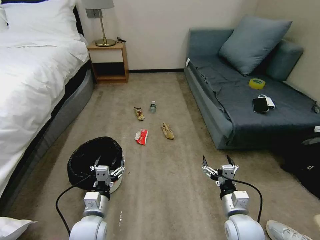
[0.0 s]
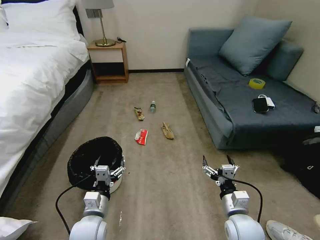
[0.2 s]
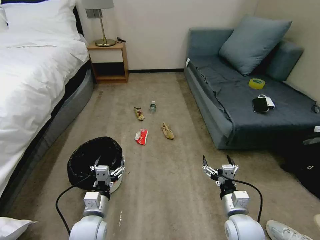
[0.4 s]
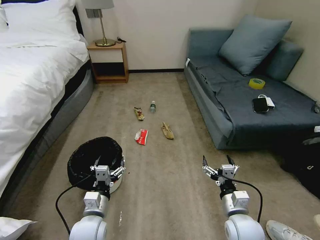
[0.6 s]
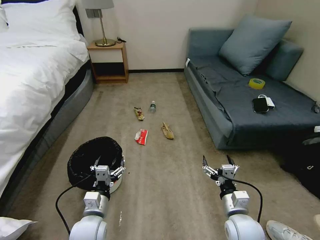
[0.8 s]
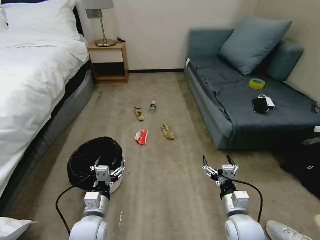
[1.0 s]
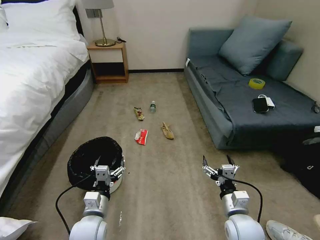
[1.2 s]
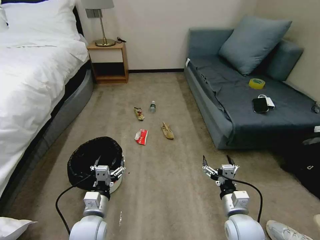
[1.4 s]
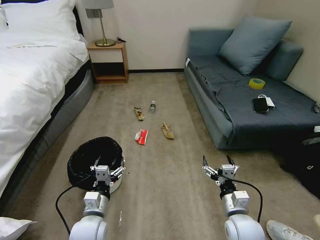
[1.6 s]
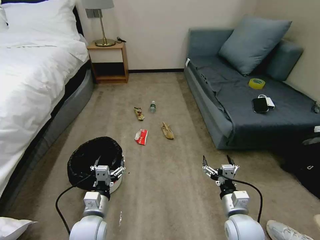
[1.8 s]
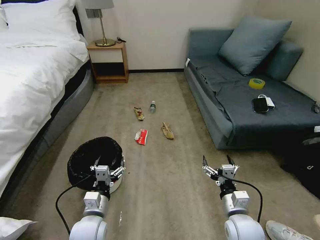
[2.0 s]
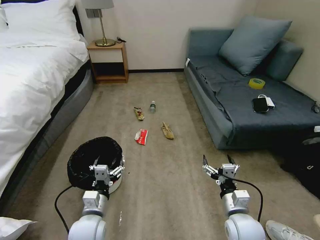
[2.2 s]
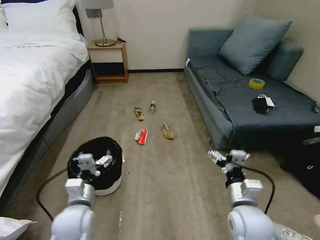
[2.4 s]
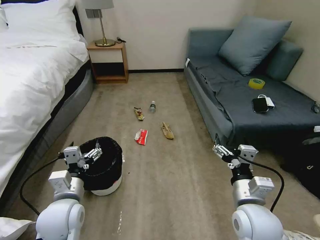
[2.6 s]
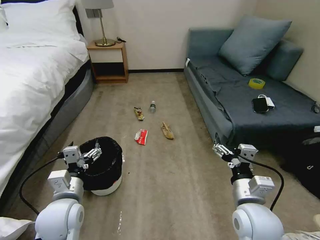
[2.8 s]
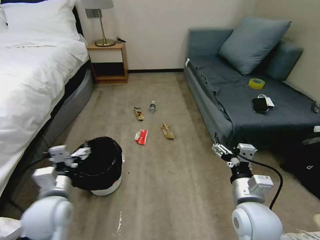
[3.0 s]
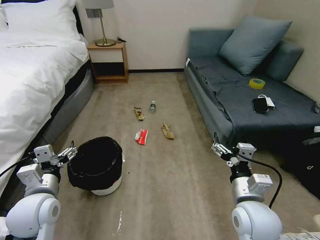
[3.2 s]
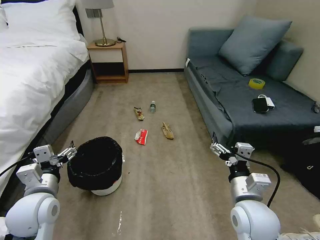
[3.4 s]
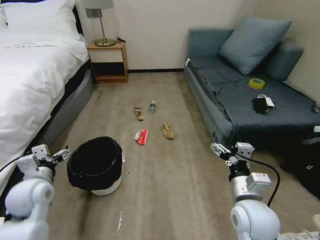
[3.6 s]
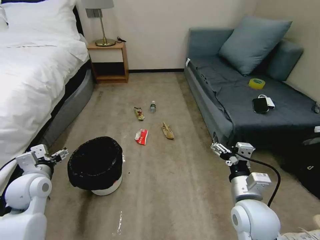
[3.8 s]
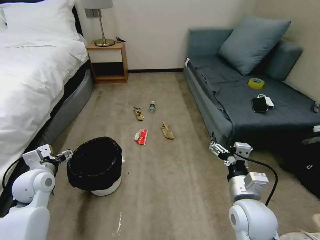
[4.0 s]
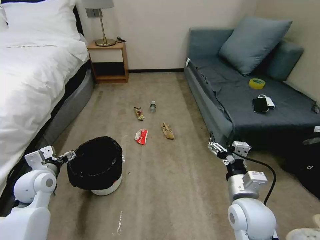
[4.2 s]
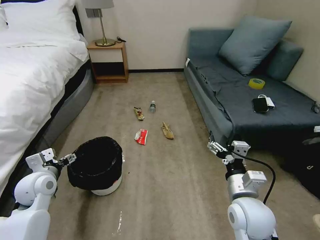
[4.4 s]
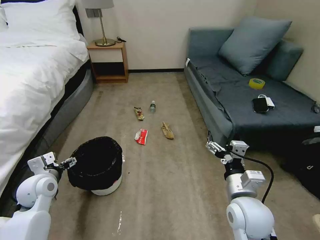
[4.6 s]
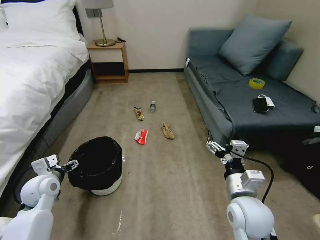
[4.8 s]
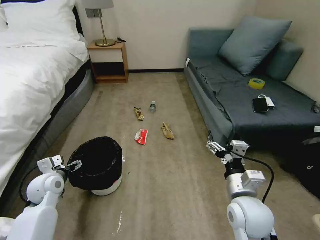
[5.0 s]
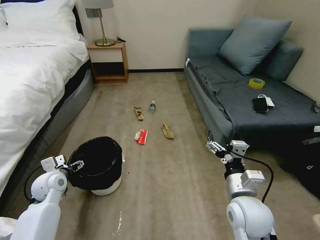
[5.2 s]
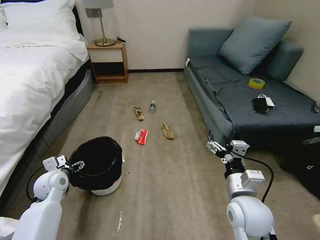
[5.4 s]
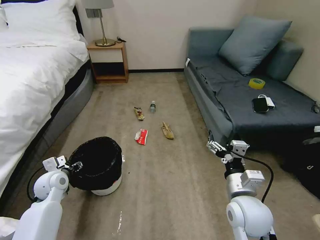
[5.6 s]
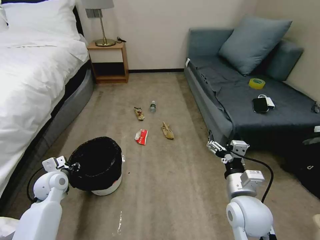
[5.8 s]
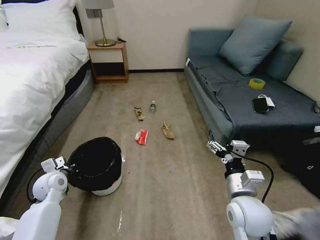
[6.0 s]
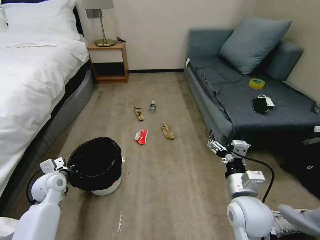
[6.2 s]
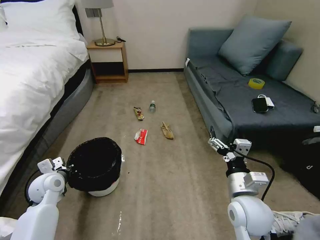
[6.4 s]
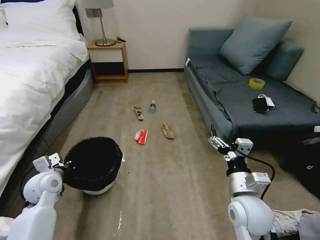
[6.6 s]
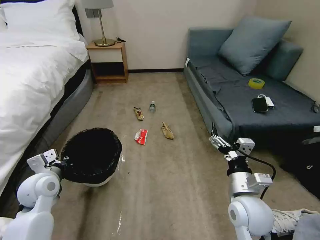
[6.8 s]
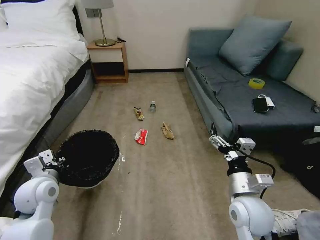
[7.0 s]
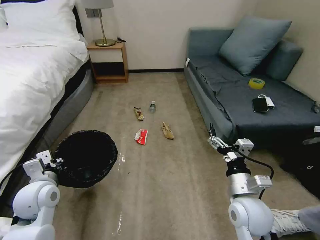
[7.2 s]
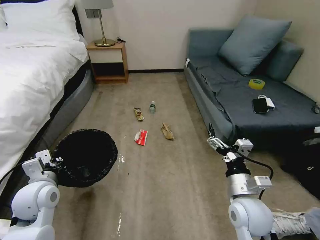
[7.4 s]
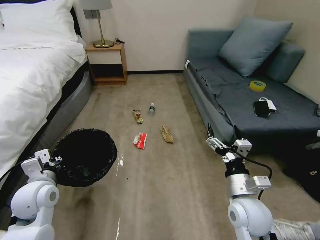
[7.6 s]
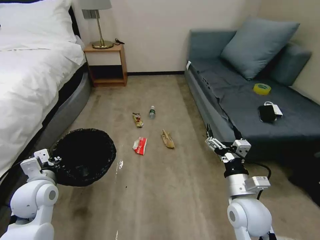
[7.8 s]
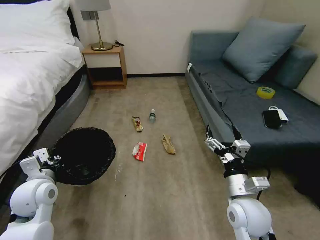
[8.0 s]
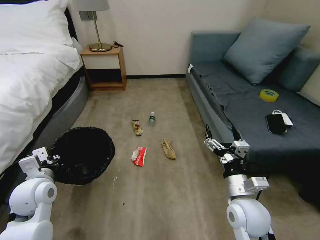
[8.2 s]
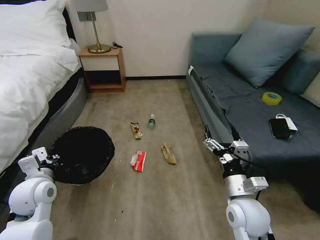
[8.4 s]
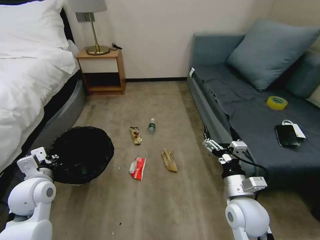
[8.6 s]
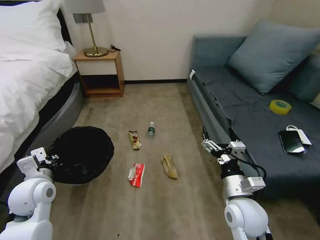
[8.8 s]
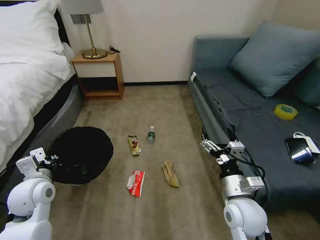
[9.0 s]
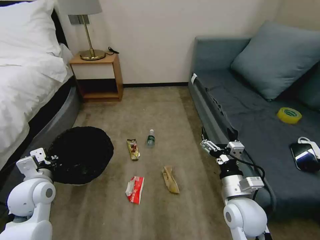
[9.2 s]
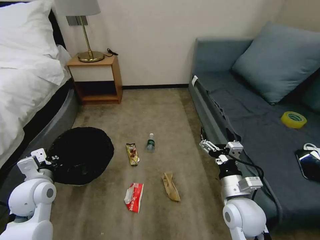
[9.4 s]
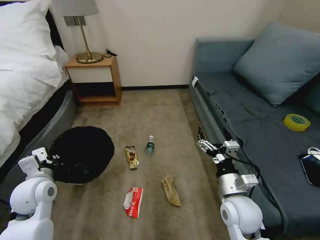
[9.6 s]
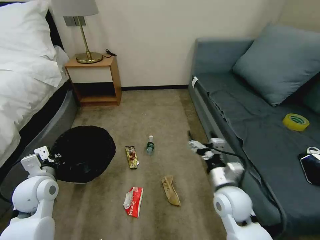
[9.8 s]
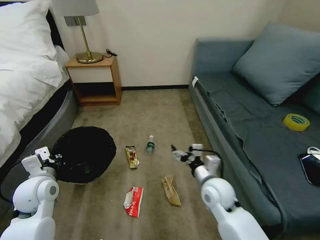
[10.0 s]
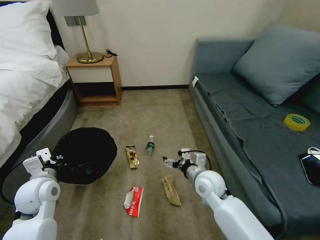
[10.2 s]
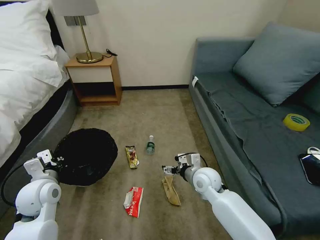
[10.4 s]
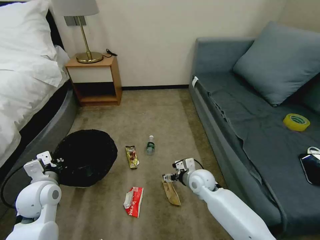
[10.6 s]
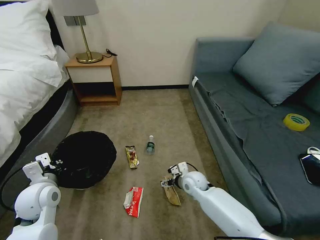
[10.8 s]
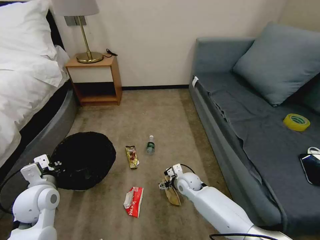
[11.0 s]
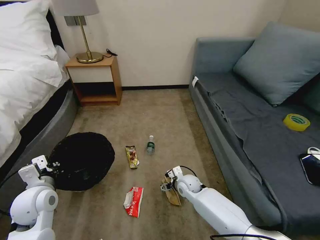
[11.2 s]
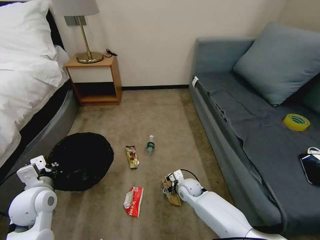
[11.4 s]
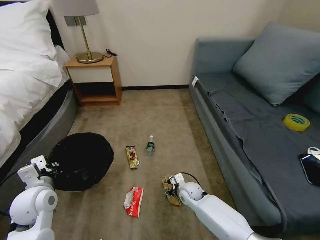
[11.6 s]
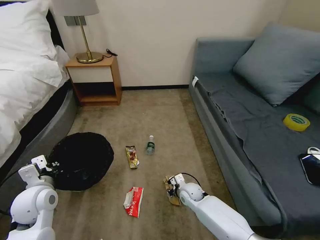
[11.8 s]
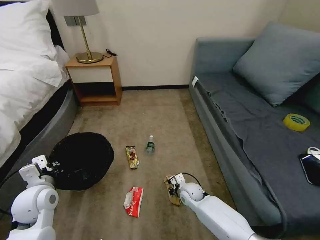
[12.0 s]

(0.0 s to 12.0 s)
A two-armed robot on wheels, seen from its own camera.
Task of the whole recording: Pick up the trash bin, then pick up the garbage on the floor and place it into the trash bin.
1.6 s - 3.0 s: The left gripper moves upward and to the left, roughly 15 cm. Meanwhile the right gripper goes some 10 cm upward.
3.0 s - 4.4 s: The left gripper goes approximately 15 cm to the left and forward.
4.4 s - 6.0 s: The left gripper moves downward, some 5 cm, and closes its fingers.
6.0 s - 7.6 s: The left gripper moves upward and backward, about 10 cm.
9.0 s - 10.4 s: The right gripper travels forward, to the left and downward by roughly 15 cm.
10.4 s - 12.0 s: The right gripper moves downward, approximately 15 cm, and closes its fingers.

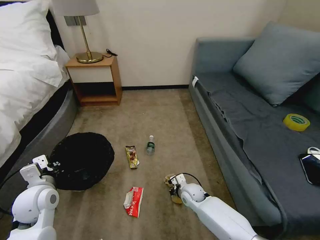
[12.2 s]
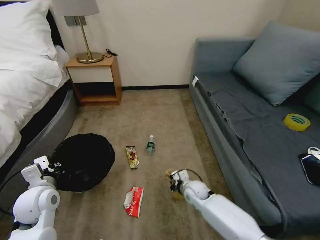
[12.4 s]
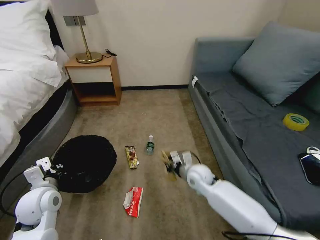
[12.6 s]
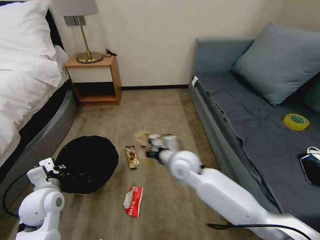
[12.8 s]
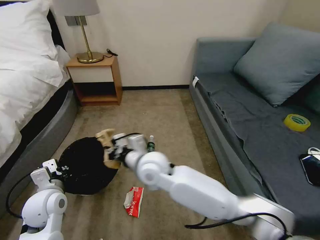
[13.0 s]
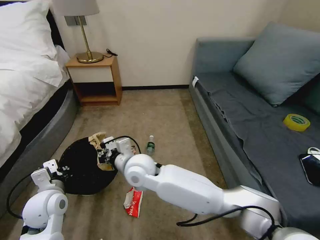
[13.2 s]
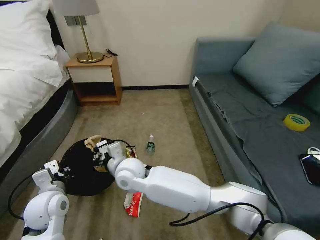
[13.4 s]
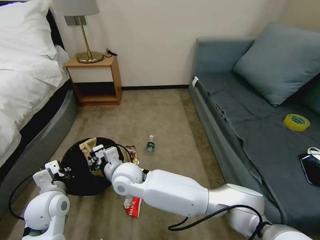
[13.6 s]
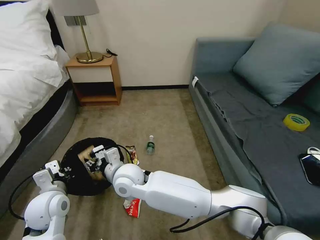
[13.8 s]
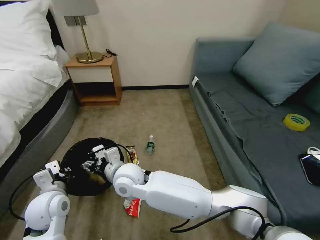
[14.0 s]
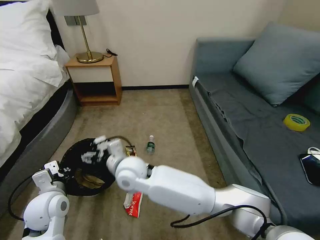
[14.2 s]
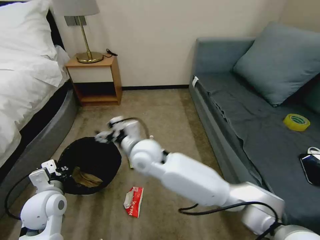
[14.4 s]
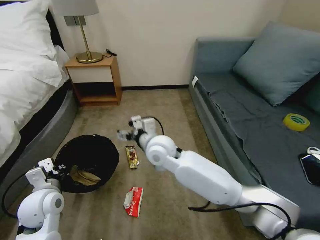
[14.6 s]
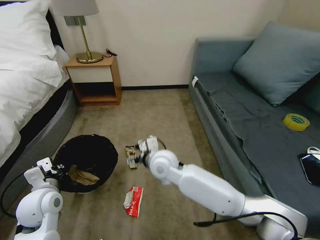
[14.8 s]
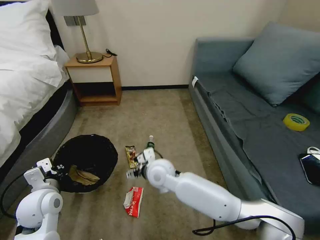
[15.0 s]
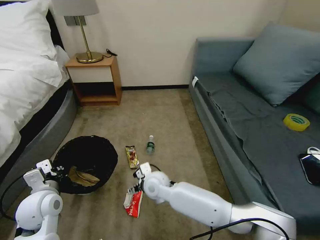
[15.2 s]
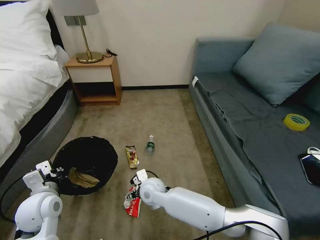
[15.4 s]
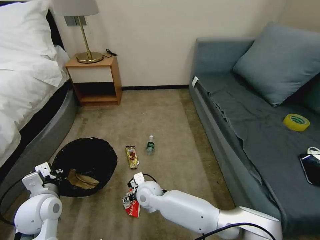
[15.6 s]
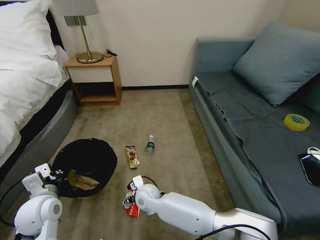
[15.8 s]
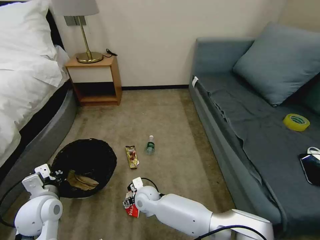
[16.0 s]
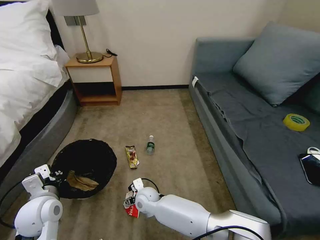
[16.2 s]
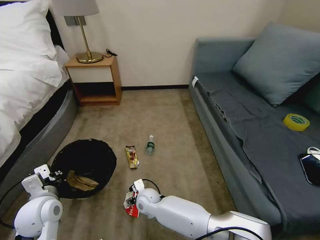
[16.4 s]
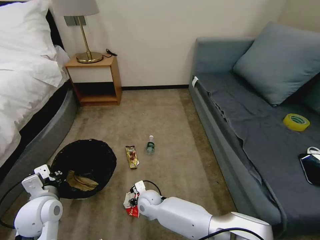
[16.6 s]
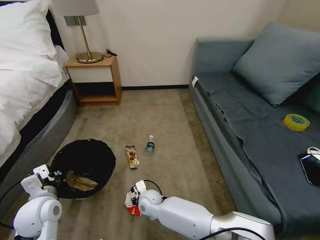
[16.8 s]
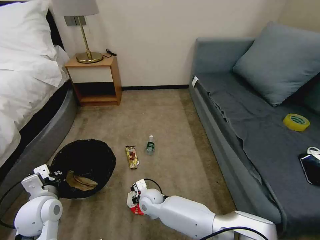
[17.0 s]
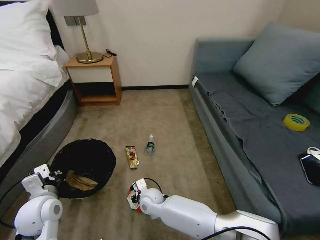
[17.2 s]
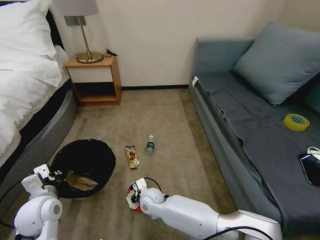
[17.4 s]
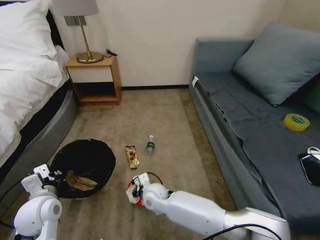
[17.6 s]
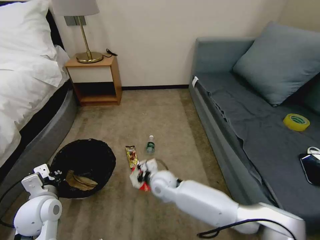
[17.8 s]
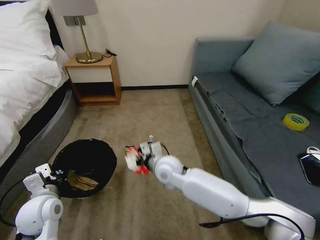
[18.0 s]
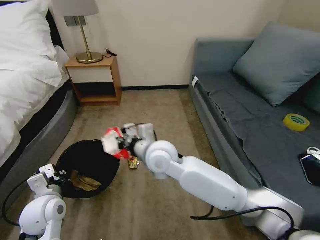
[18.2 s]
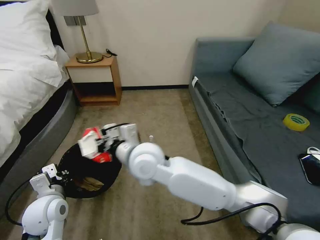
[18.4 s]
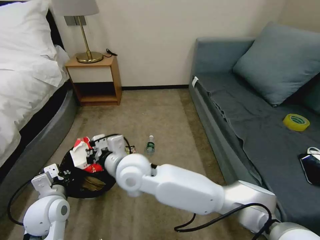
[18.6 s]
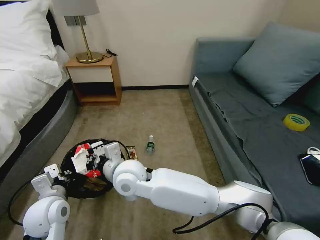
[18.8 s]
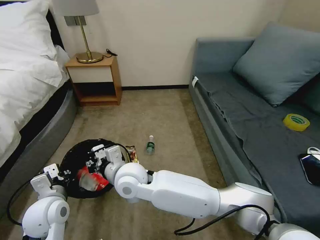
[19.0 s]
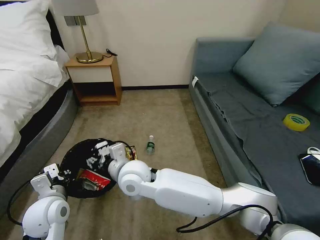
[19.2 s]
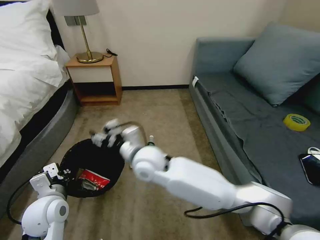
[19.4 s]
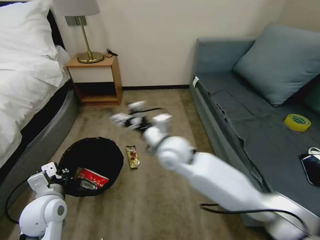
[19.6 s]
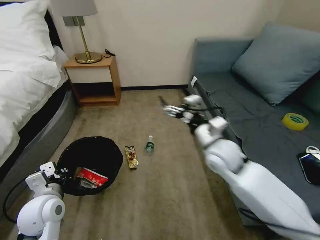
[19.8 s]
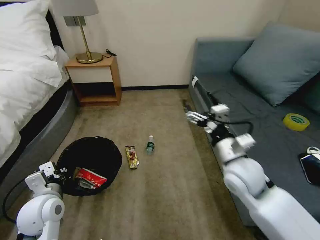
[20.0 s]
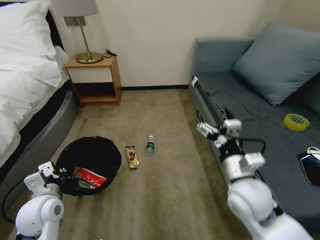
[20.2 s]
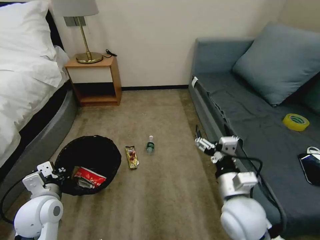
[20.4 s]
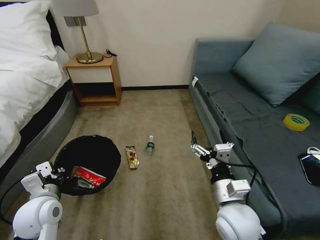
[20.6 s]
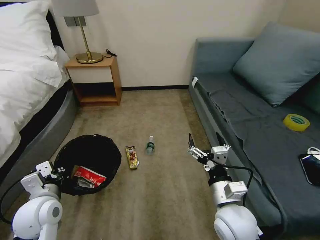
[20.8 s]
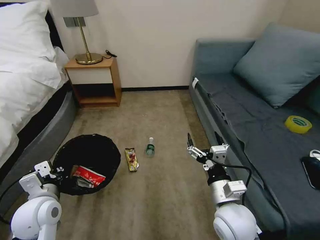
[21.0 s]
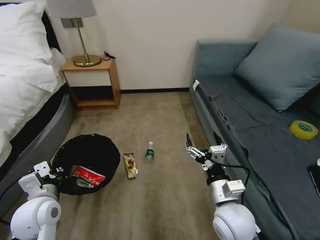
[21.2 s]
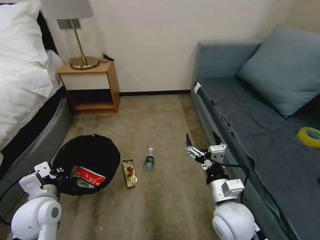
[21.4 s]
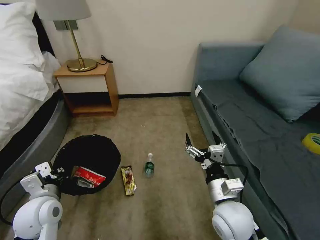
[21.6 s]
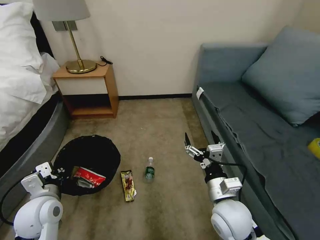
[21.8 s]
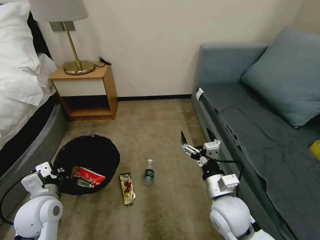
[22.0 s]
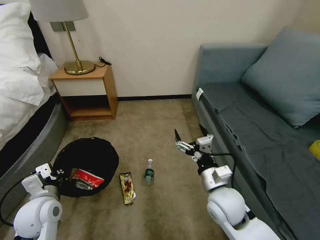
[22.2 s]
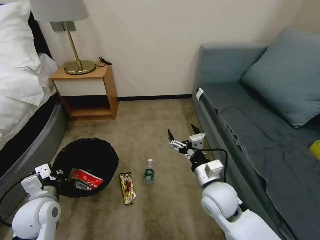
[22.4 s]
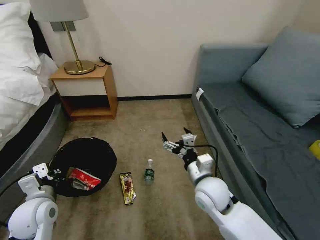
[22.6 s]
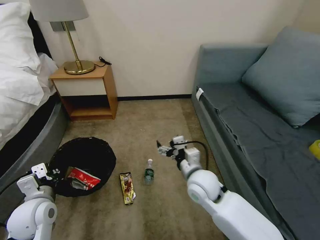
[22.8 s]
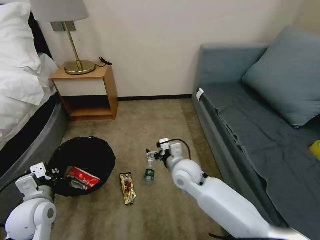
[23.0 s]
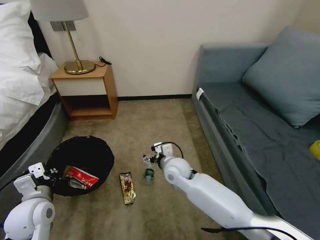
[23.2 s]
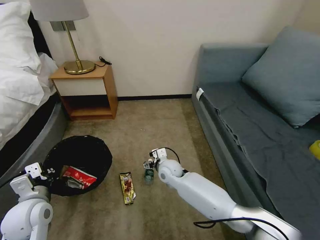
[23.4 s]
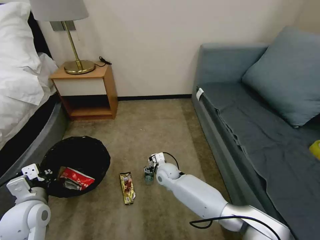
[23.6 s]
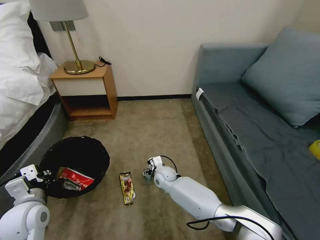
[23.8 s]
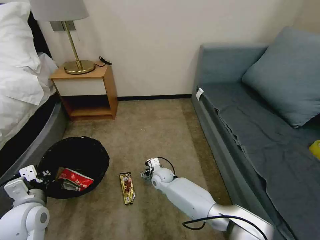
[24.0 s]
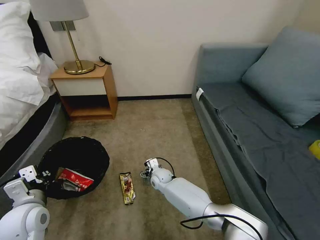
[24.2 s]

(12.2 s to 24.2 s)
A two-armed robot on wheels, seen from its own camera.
Task of the whole recording: Pick up the trash bin, then pick up the garbage on the floor and place it into the trash bin.
12.2 s - 13.8 s: The right gripper travels to the left and upward by some 35 cm, and opens its fingers.
13.8 s - 15.2 s: The right gripper travels downward and to the right by approximately 15 cm, and opens.
15.2 s - 16.6 s: The right gripper heads downward, covering about 10 cm.
16.6 s - 18.2 s: The right gripper heads upward, covering approximately 30 cm, and closes its fingers.
18.2 s - 19.8 s: The right gripper is displaced to the right by approximately 15 cm, and opens.
19.8 s - 21.2 s: The right gripper heads backward and downward, covering about 20 cm.
21.2 s - 22.6 s: The right gripper travels forward by approximately 5 cm.
22.6 s - 24.2 s: The right gripper is displaced downward, forward and to the left by about 30 cm.
